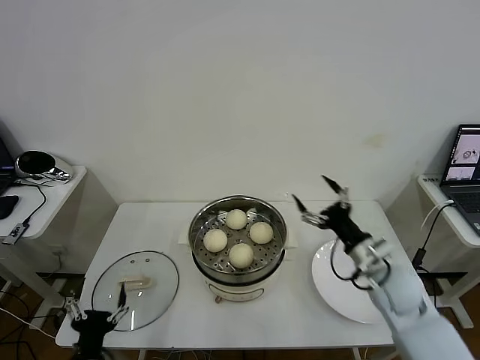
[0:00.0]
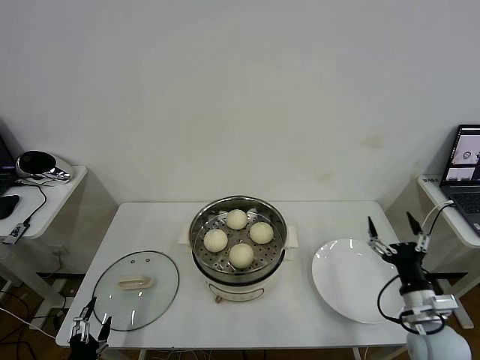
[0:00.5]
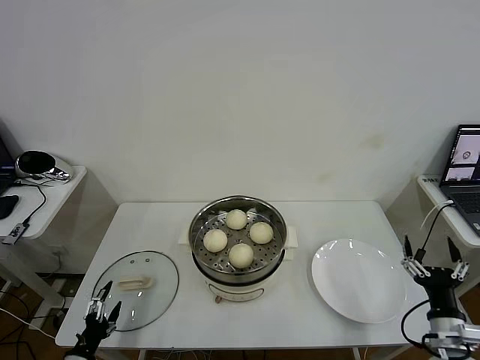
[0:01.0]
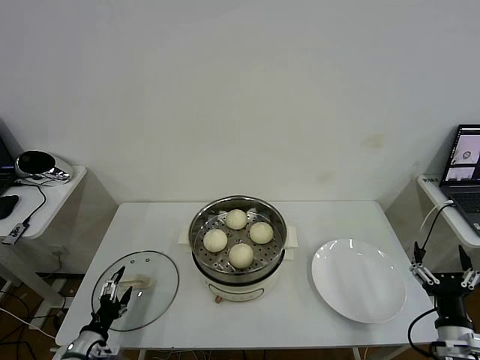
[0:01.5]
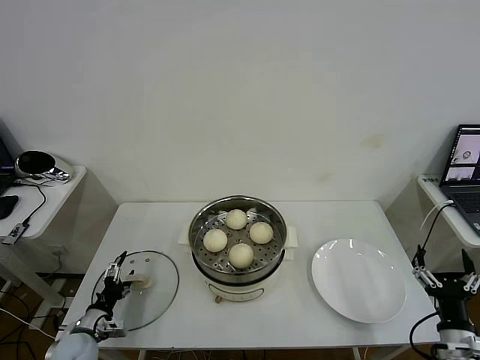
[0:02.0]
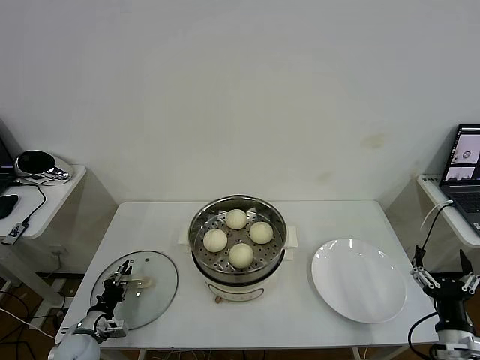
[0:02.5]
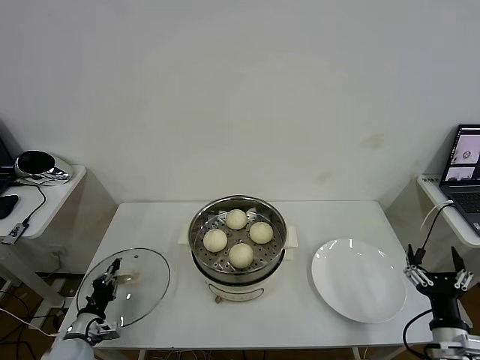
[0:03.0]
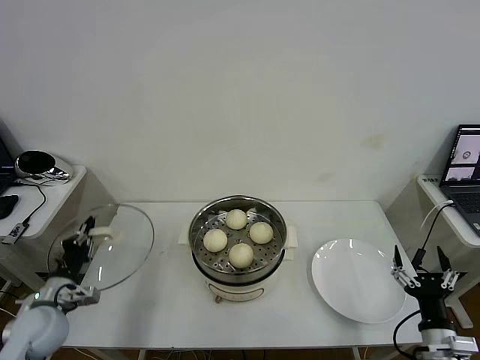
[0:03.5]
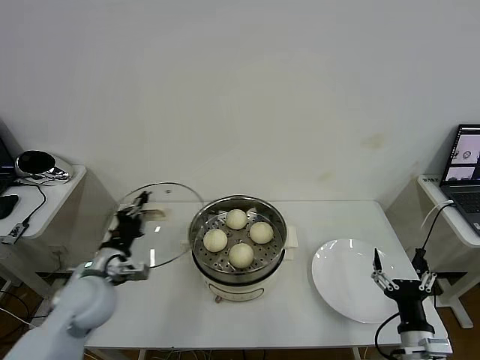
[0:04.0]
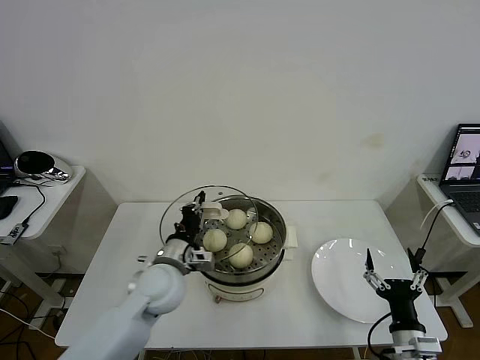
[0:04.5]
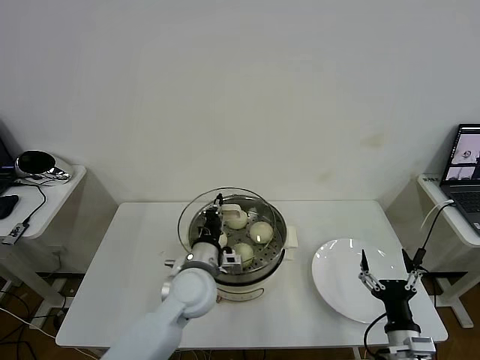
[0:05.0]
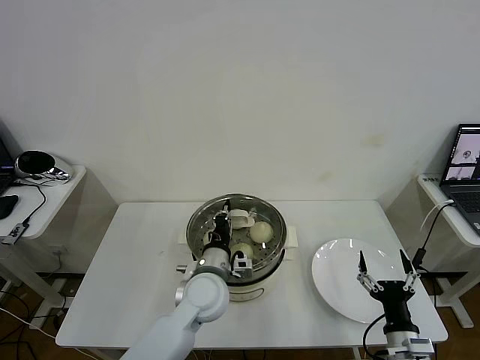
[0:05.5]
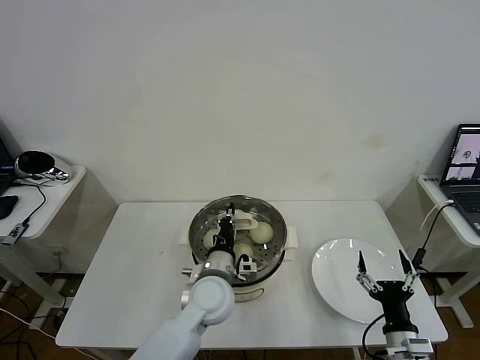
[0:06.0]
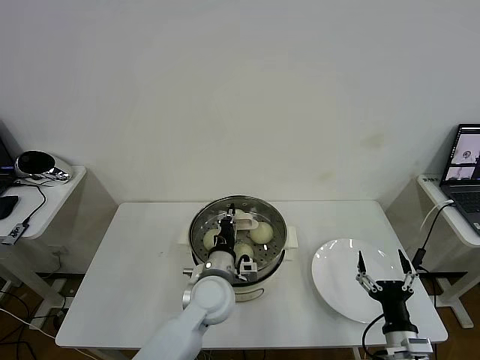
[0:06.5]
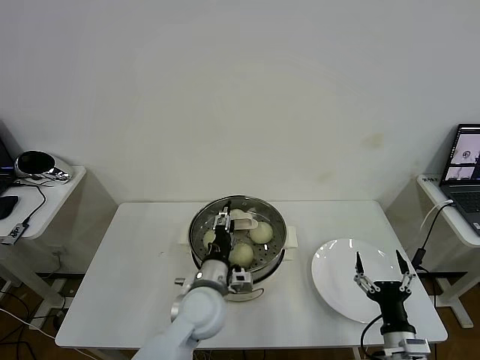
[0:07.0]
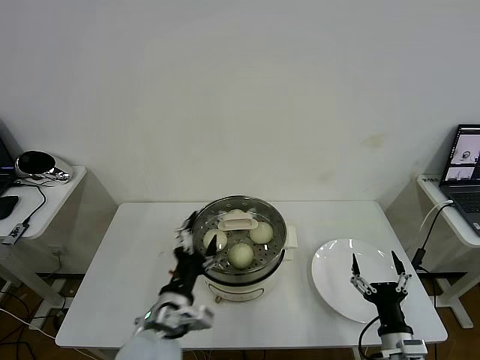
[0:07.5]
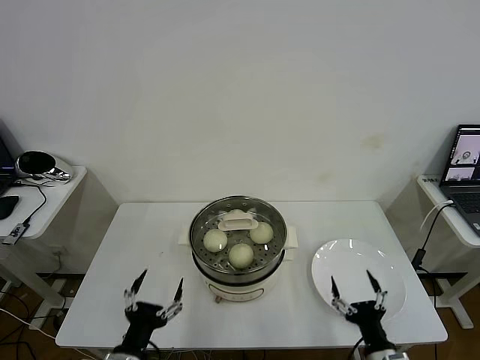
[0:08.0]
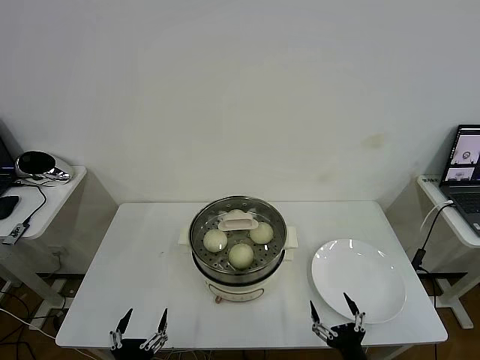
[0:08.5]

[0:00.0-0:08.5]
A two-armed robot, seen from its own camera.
Task of the whole recording: take steamed baozi put them in steamer then cover it.
Step, 0:00.0 to 0:02.5: Grasp the pot lid with left gripper.
Step, 0:03.0 to 0:07.0: Place the pot lid on the steamer with left gripper.
0:00.0 to 0:02.0: The right gripper is displaced backward and to the right by roughly 20 cm. Meanwhile the left gripper is displaced forward, to the left and downward by roughly 20 cm.
0:02.0 to 0:04.0: The left gripper heads upward and to the right, covering about 20 cm, and closes up. The right gripper is displaced to the left by some 5 cm.
0:04.0 to 0:06.5: The left gripper shifts some 25 cm to the right.
0:06.5 to 0:08.5: The left gripper moves backward and to the left, some 30 cm, and opens its fingers. Meanwhile the right gripper shifts about 10 cm backward and to the left.
